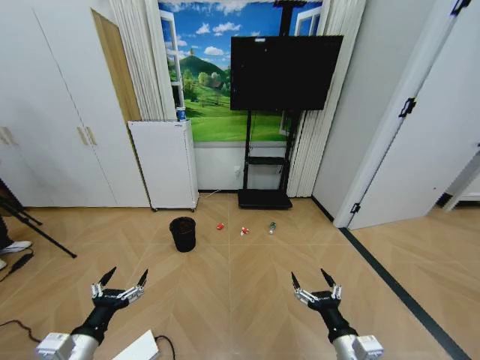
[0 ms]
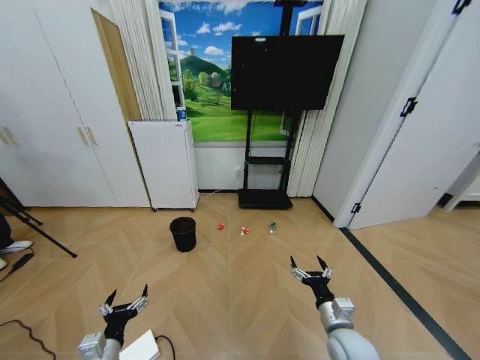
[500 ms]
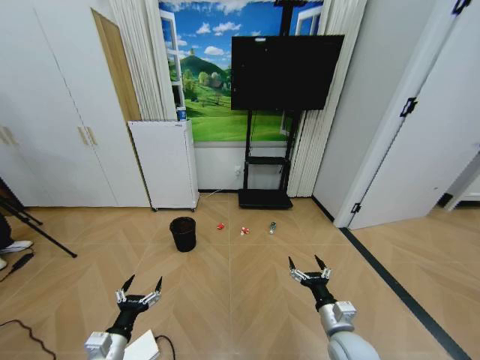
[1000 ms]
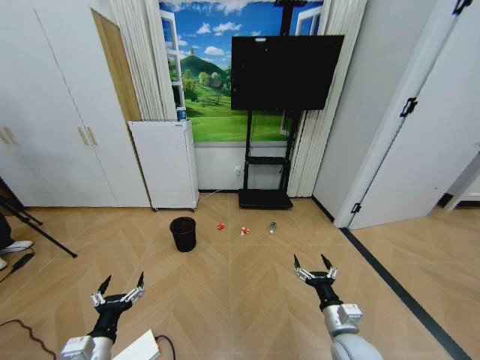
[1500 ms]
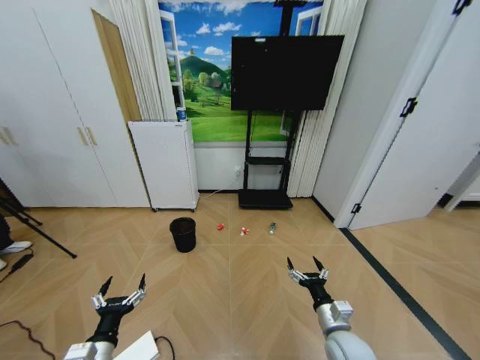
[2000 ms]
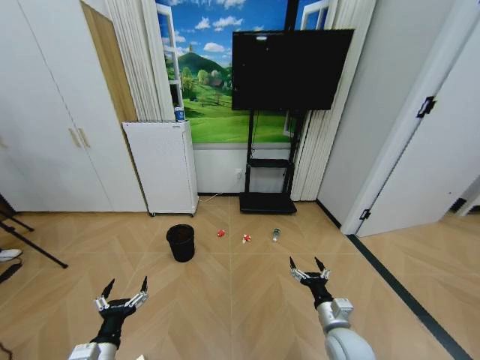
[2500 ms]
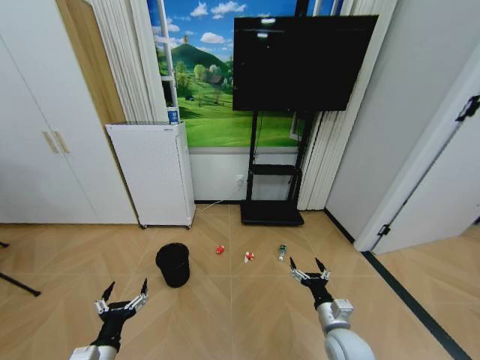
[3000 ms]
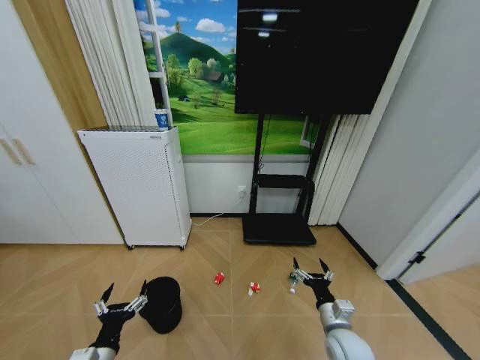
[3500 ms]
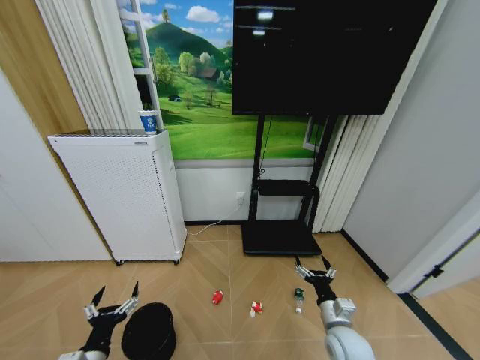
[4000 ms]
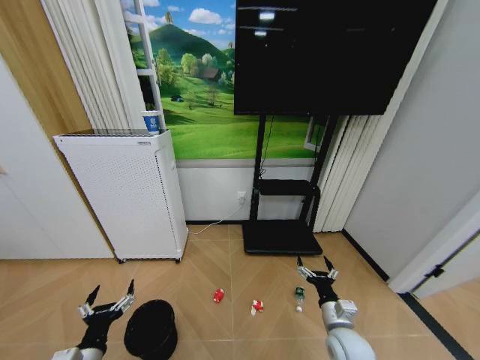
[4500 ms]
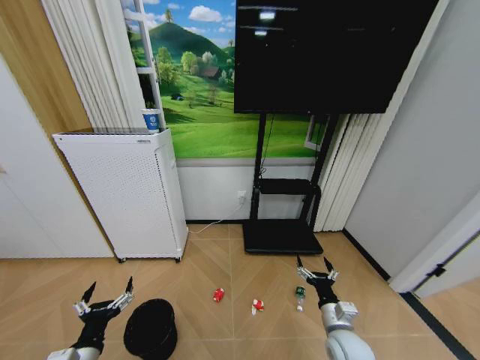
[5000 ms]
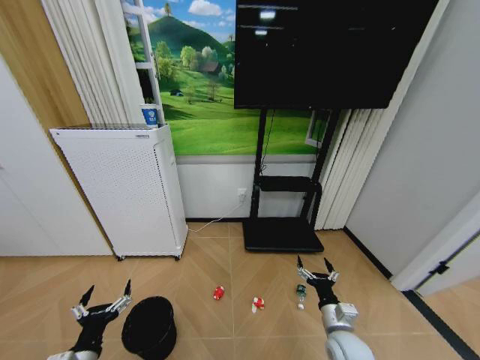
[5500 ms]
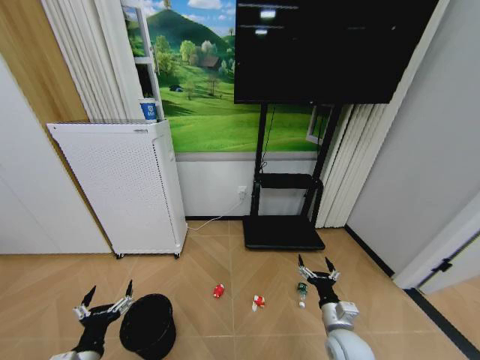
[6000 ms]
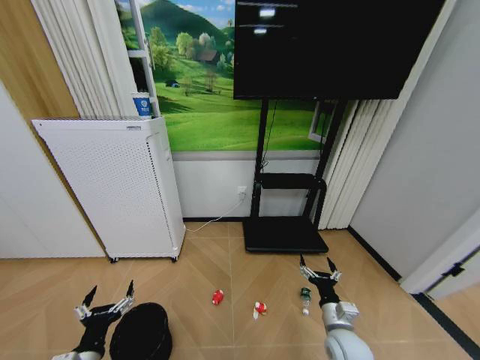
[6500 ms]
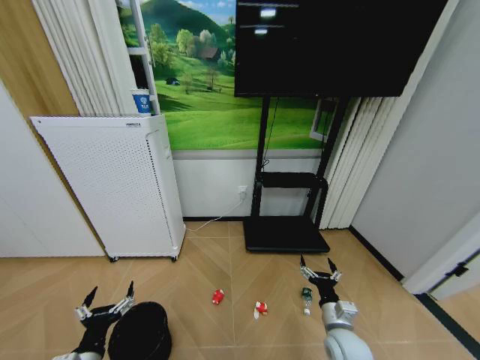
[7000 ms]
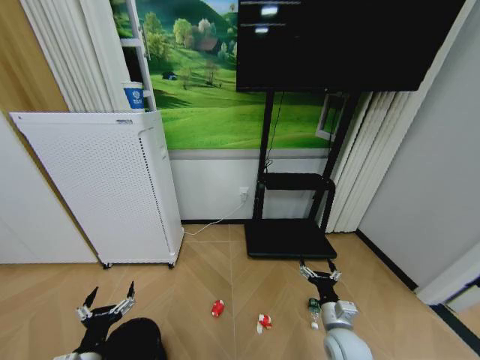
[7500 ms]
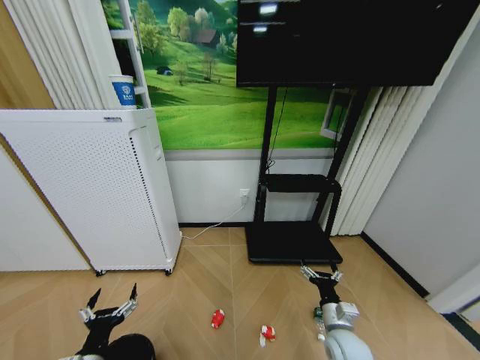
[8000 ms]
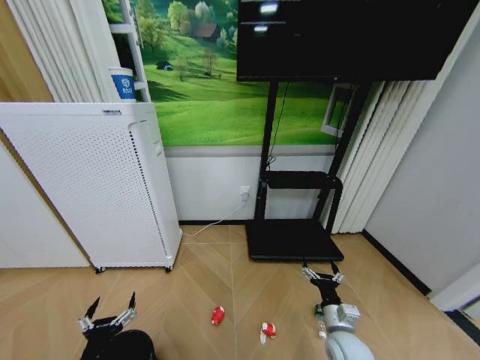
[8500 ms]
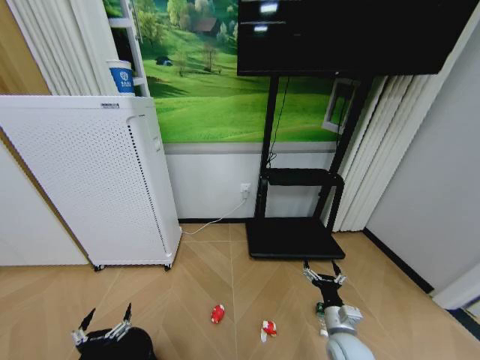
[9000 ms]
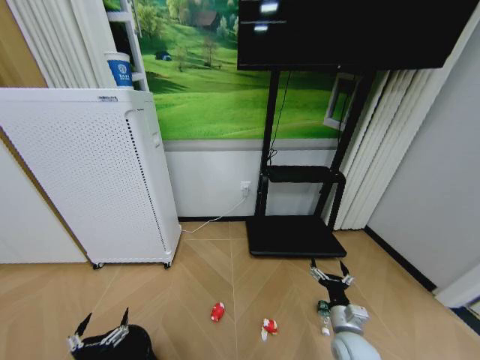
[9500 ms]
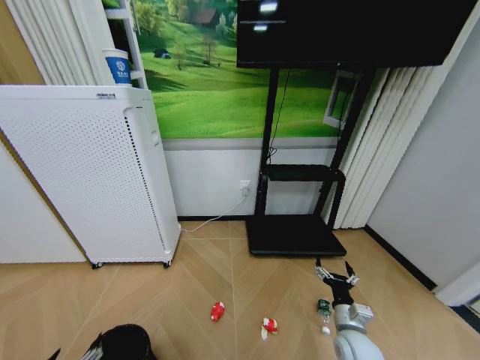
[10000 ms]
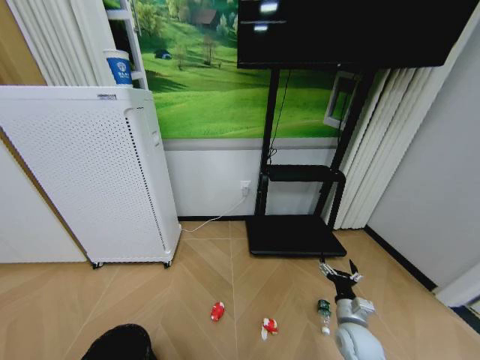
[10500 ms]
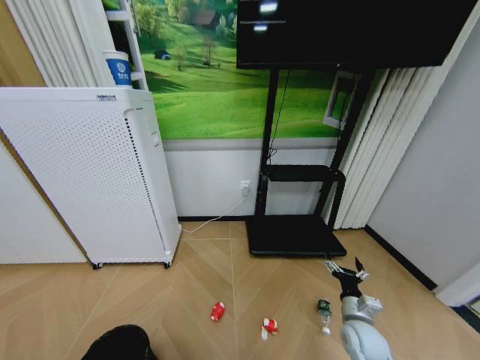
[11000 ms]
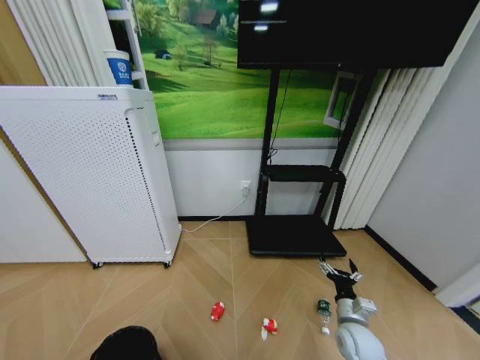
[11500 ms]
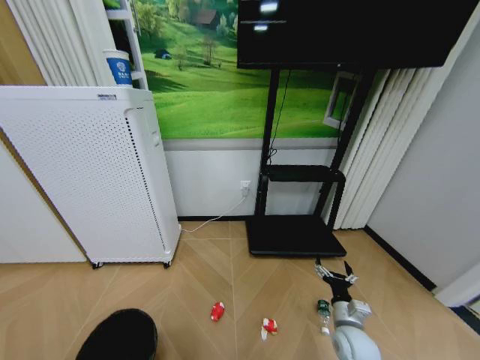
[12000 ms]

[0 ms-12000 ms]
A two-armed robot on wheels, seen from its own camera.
Task of the whole recording: Pick up the trash bin and place the garbage on the floor into it.
8000 ms to 10000 ms: The left gripper is displaced backward by roughly 10 cm.
10000 ms to 12000 ms: The left gripper shifts about 10 cm downward, and closes.

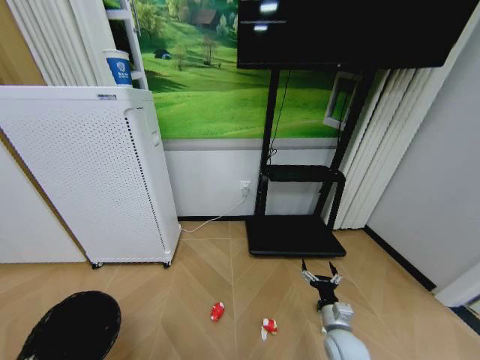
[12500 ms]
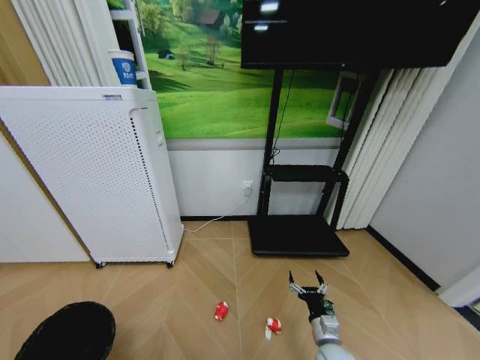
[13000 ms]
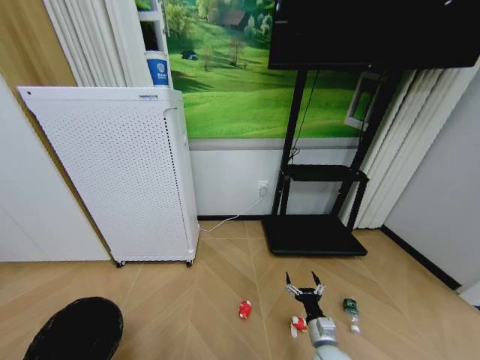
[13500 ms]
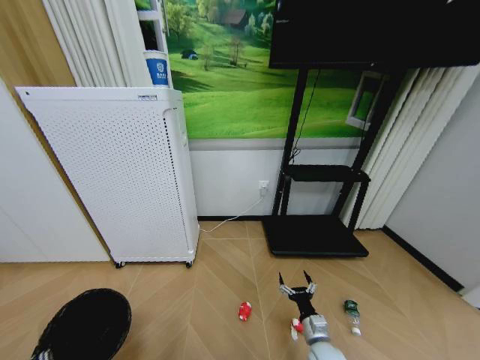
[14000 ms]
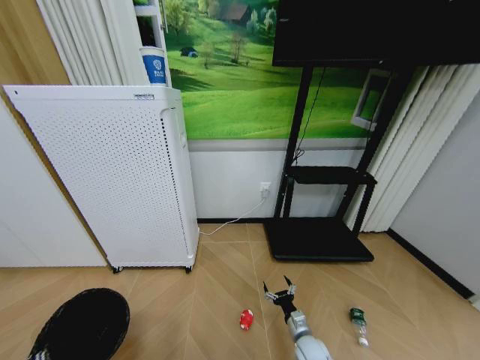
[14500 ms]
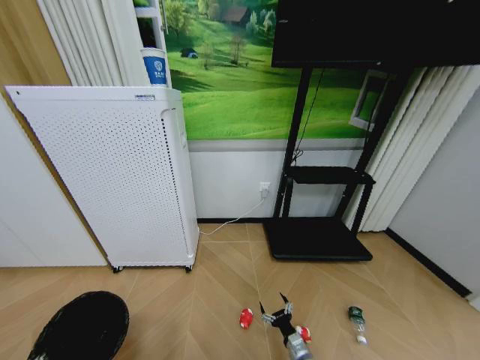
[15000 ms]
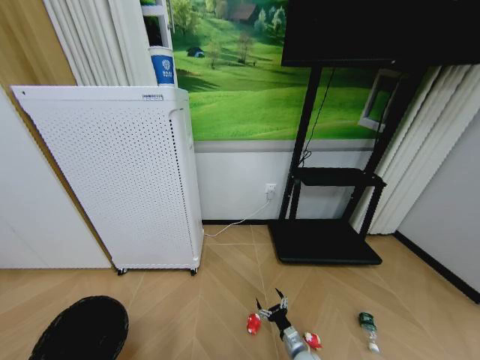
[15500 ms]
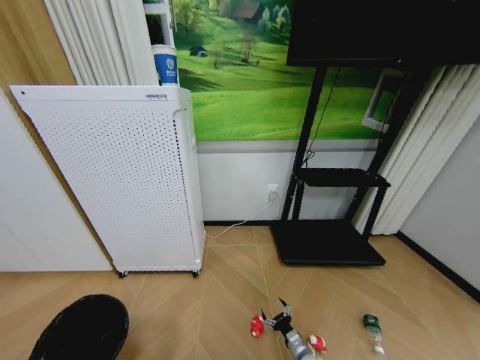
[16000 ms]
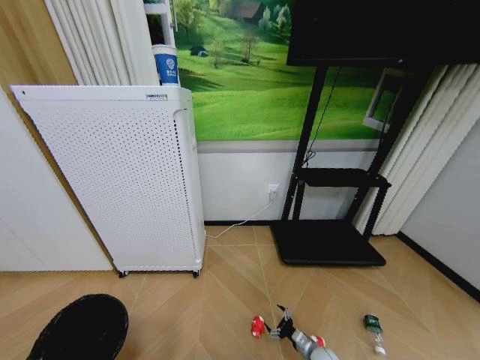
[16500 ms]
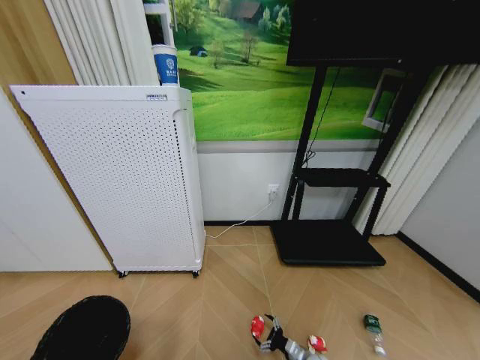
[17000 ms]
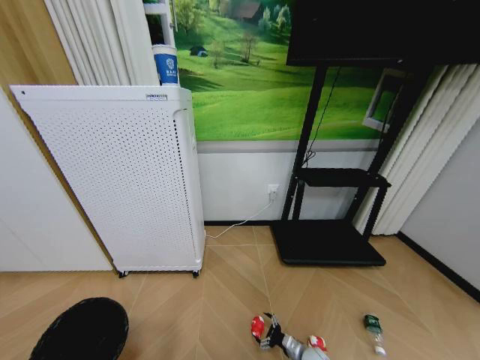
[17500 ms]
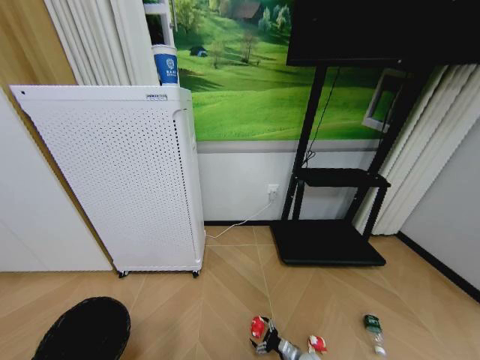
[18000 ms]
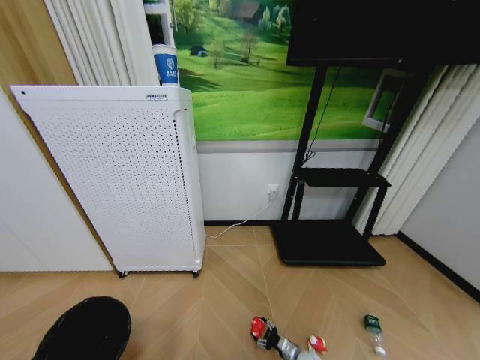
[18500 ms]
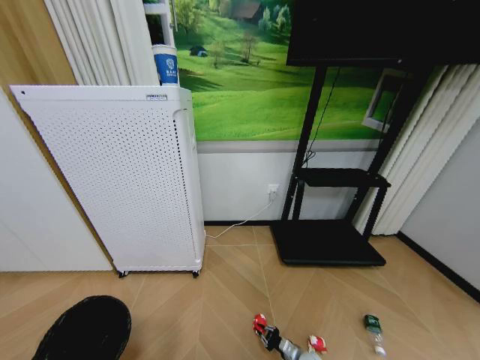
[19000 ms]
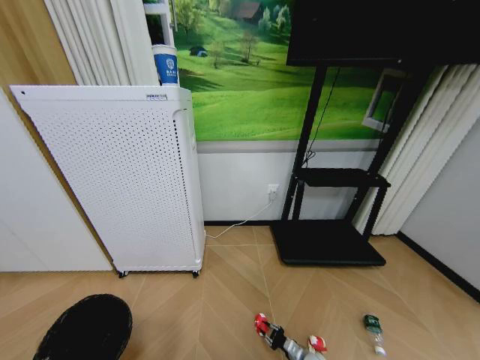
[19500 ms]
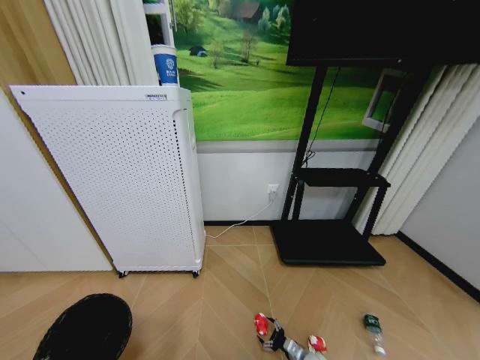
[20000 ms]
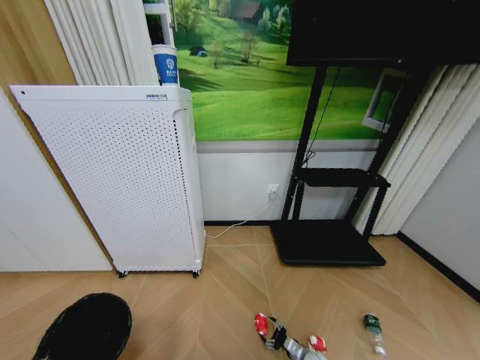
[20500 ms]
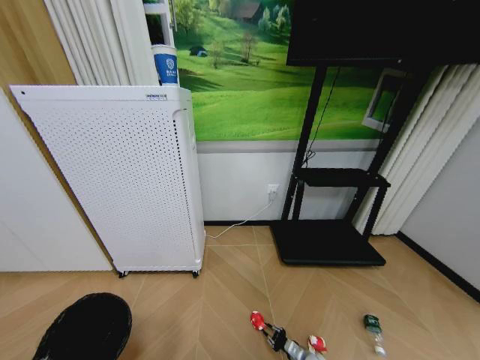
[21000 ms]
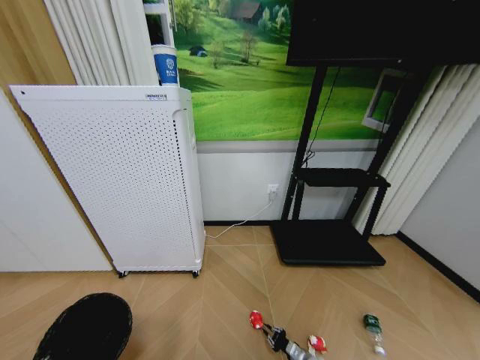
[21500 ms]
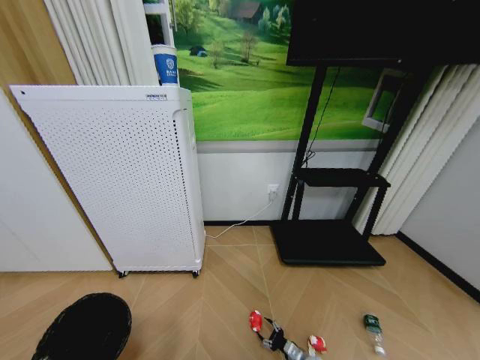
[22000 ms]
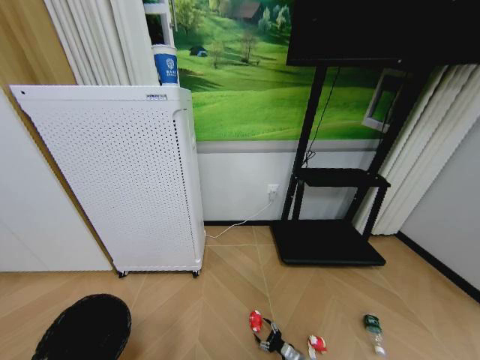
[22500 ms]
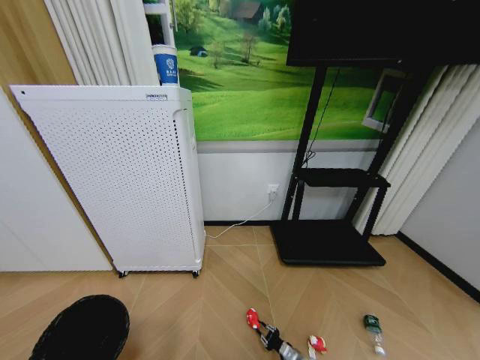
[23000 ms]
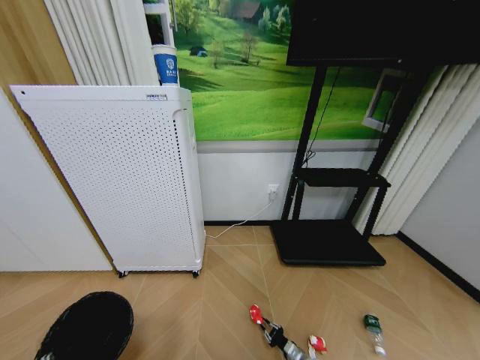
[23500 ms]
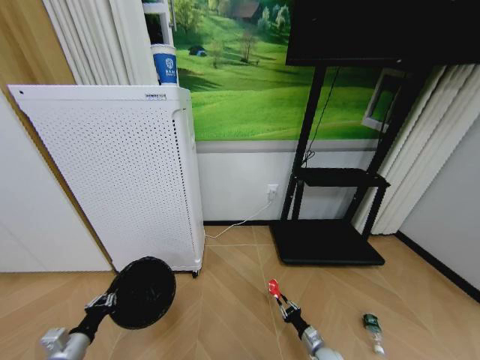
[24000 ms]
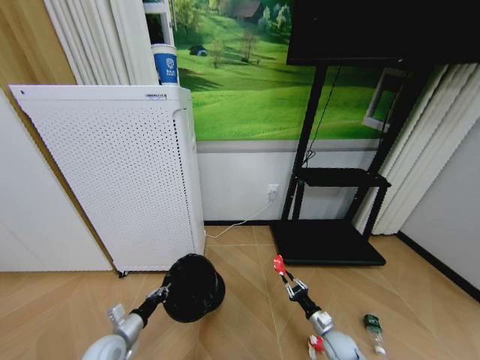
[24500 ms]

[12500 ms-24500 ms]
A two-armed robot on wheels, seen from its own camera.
Task of the whole recording: Pick up the trash bin and place the garbage on the floor into it.
12500 ms to 14500 ms: The right gripper is displaced downward and to the left by roughly 10 cm.
14500 ms to 16500 ms: The right gripper travels downward and to the right by some 10 cm.
16500 ms to 18500 ms: The right gripper changes place by about 5 cm.
20500 ms to 22500 ms: The right gripper closes, then reopens.
22500 ms to 24500 ms: The right gripper goes some 15 cm upward and to the right, and closes; the left gripper is displaced forward and to the right by roughly 20 cm.

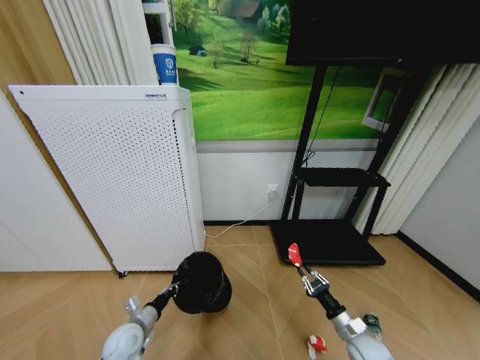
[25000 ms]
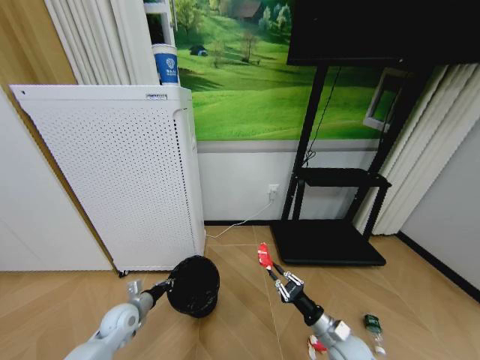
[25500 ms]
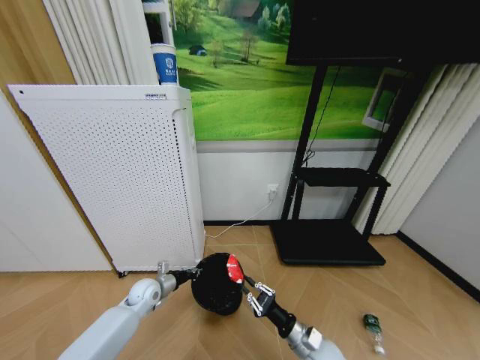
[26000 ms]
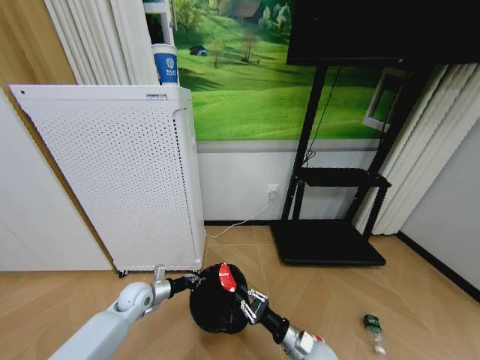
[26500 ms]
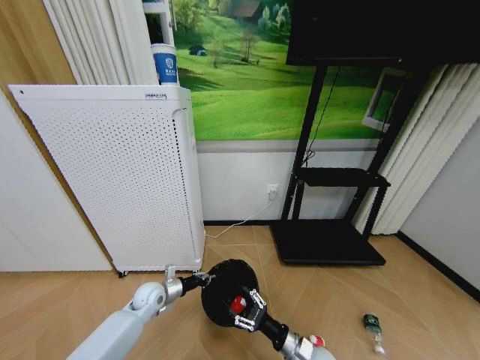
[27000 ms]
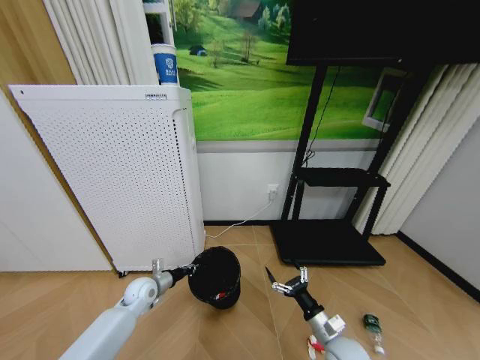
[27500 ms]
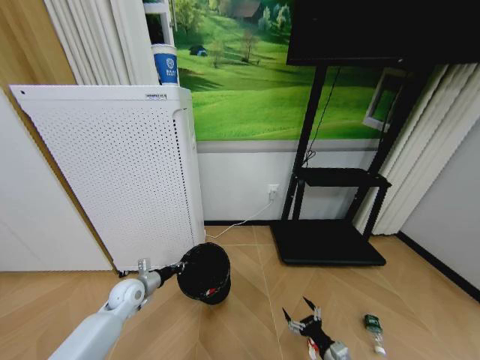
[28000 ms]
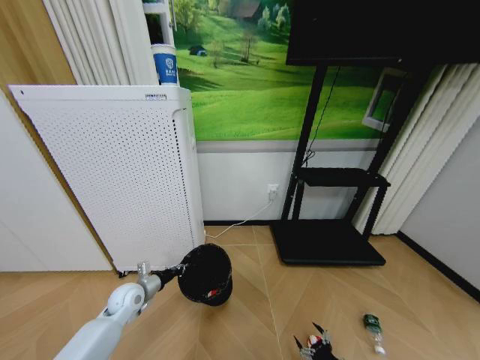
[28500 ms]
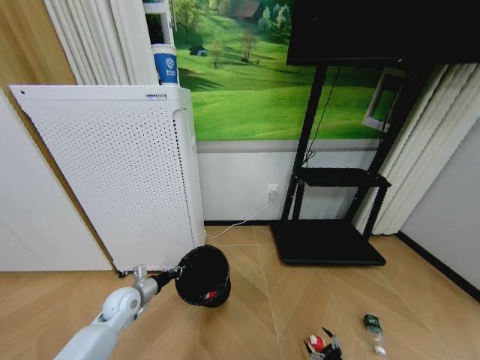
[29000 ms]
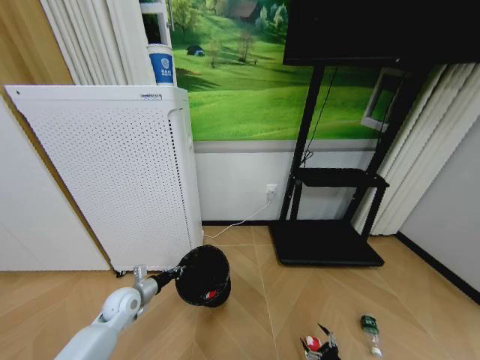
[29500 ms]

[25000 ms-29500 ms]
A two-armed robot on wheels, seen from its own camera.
Task of the whole recording: Pick up the trash bin and place the garbage on the floor into it.
25000 ms to 27000 ms: The left gripper heads forward, covering roughly 10 cm. The right gripper shifts roughly 15 cm to the left, and opens.
27000 ms to 29500 ms: The right gripper heads to the right and downward, covering approximately 25 cm, and opens. Meanwhile the left gripper shifts approximately 5 cm to the left.
